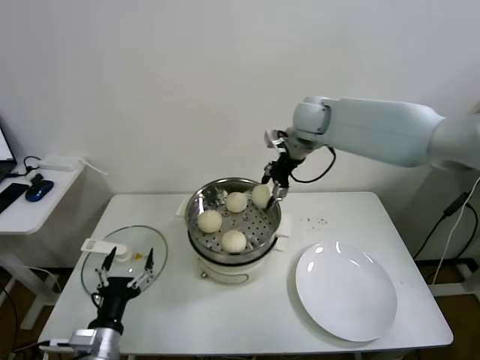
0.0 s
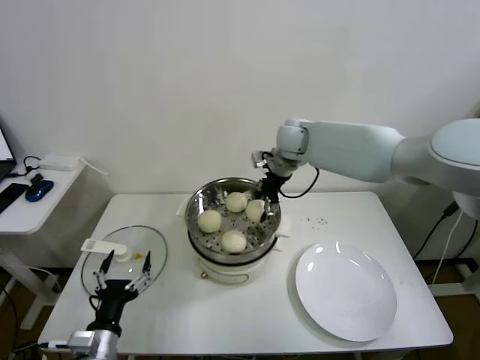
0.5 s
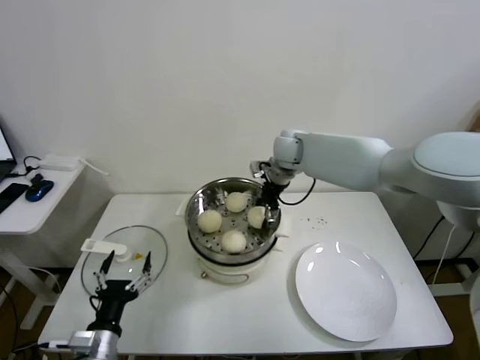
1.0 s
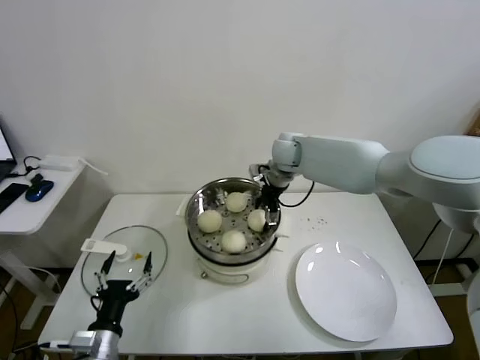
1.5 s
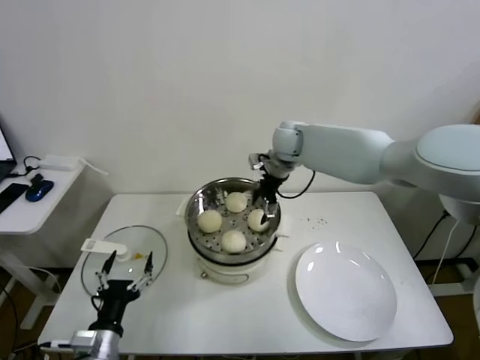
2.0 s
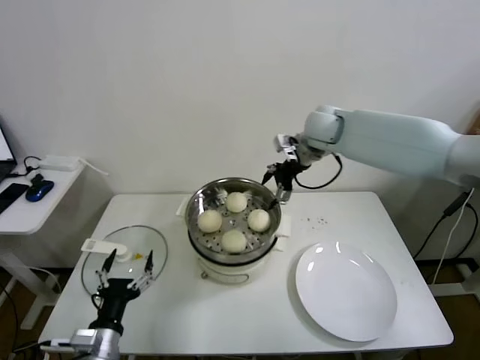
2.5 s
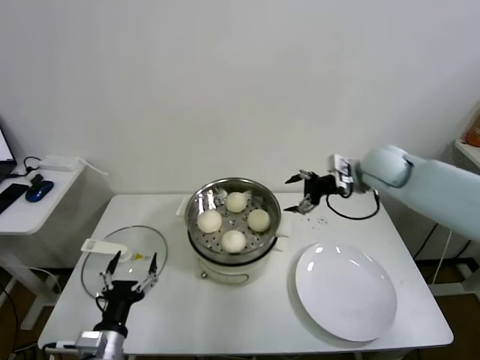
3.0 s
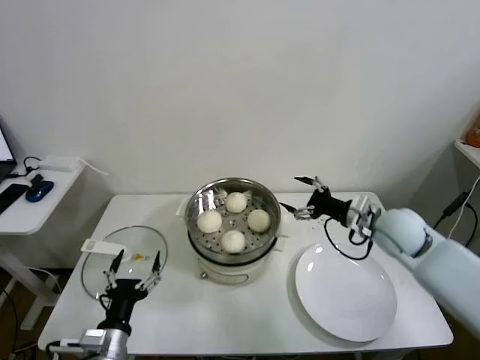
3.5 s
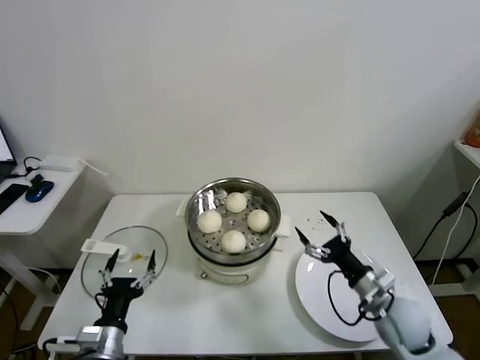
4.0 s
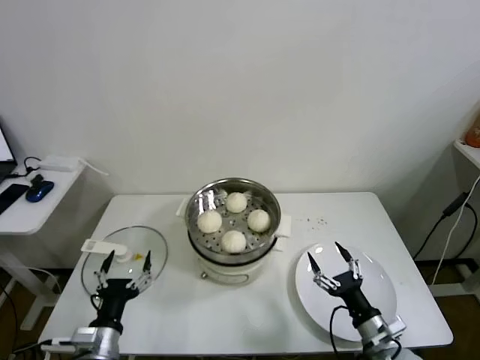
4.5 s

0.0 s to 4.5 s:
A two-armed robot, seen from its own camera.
Task of the whole recording: take steamed baozi put them in steamer.
0.0 to 2.0 s: The right gripper goes roughly 5 cm downward, and opens up.
2.0 to 4.5 s: The right gripper is displaced backward, downward and to the right by roughly 50 cm.
